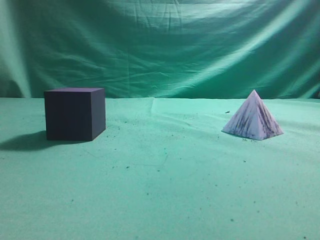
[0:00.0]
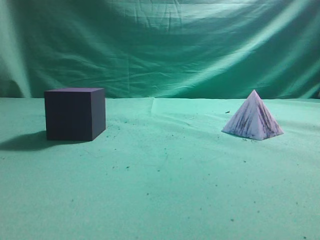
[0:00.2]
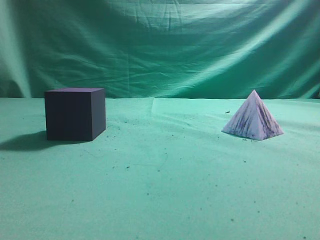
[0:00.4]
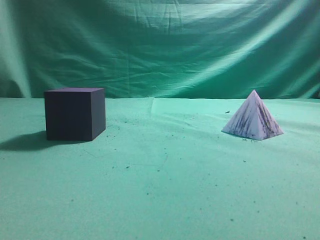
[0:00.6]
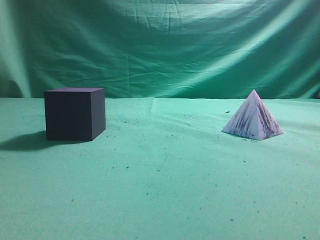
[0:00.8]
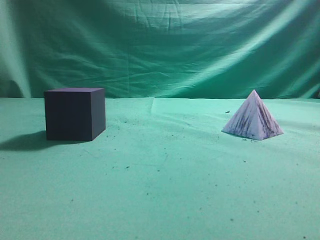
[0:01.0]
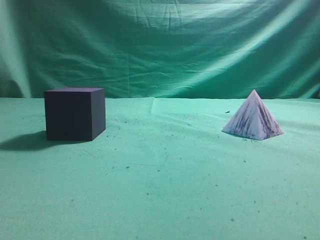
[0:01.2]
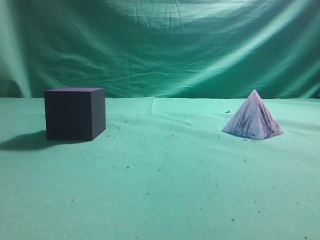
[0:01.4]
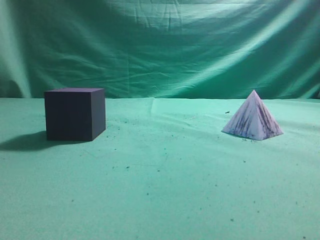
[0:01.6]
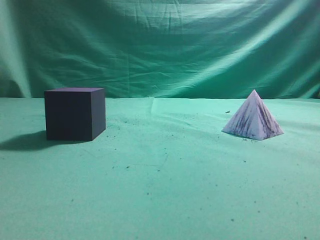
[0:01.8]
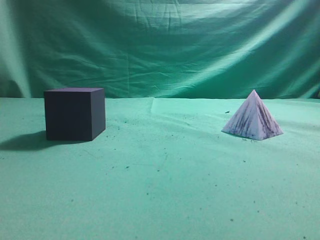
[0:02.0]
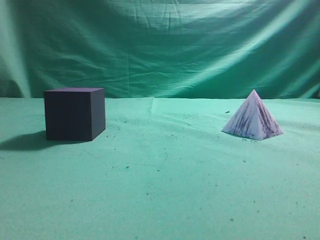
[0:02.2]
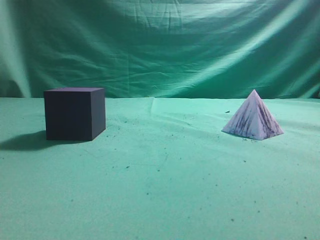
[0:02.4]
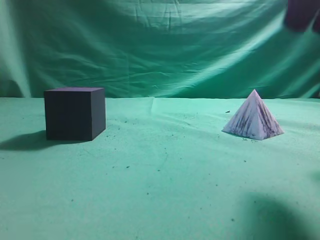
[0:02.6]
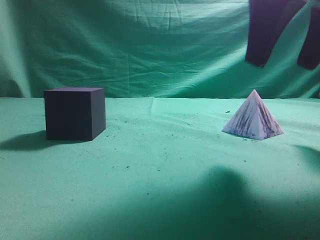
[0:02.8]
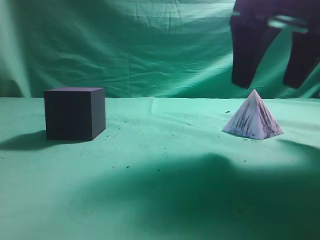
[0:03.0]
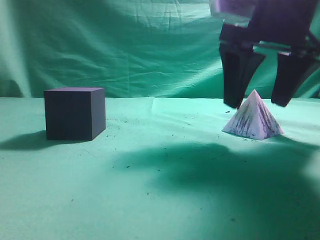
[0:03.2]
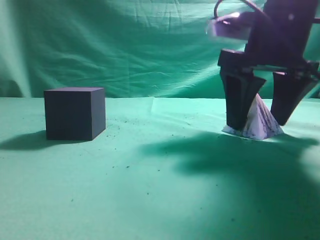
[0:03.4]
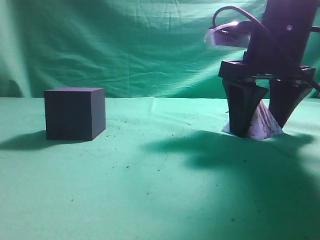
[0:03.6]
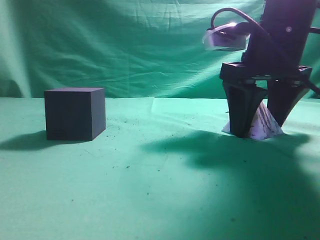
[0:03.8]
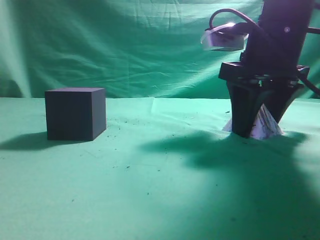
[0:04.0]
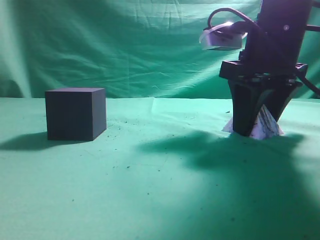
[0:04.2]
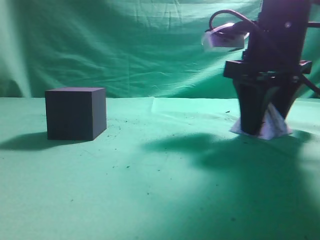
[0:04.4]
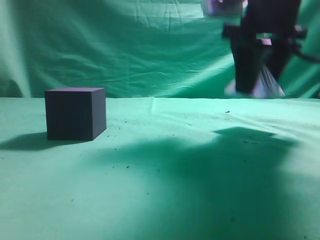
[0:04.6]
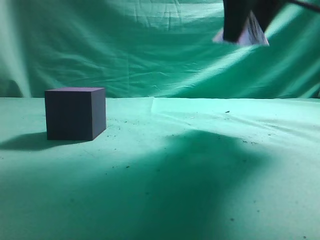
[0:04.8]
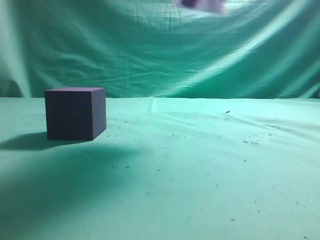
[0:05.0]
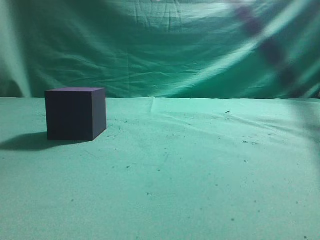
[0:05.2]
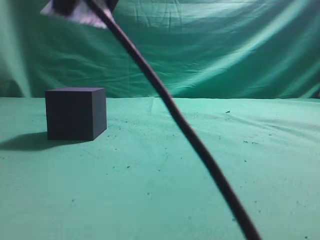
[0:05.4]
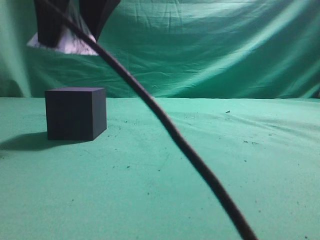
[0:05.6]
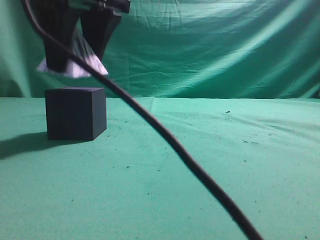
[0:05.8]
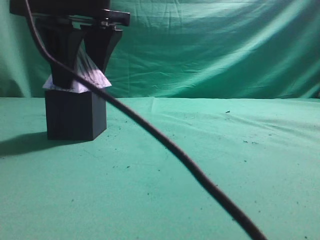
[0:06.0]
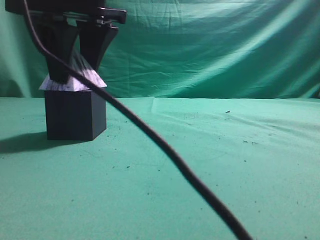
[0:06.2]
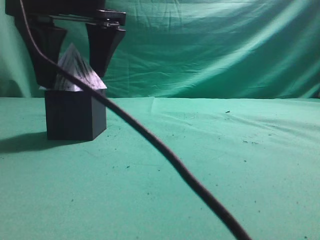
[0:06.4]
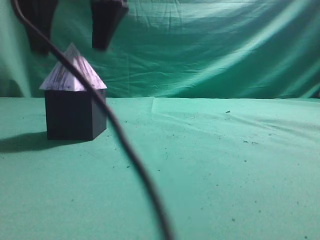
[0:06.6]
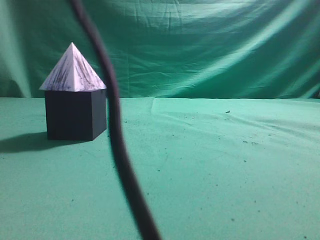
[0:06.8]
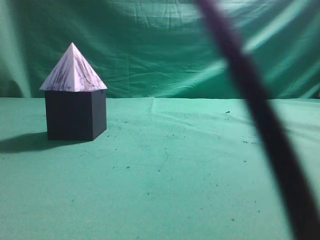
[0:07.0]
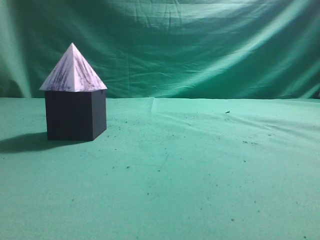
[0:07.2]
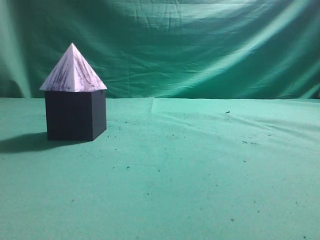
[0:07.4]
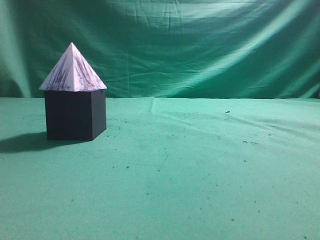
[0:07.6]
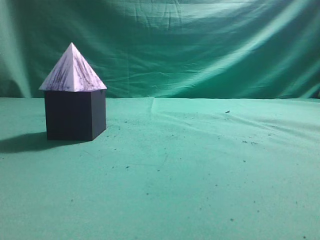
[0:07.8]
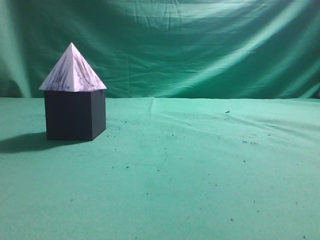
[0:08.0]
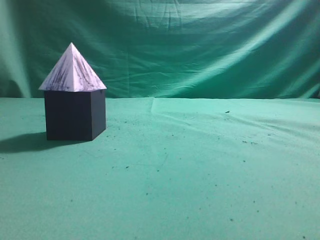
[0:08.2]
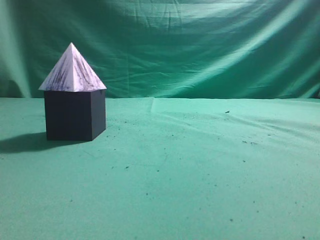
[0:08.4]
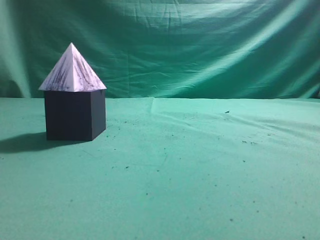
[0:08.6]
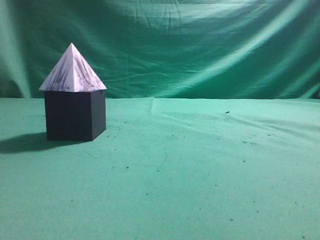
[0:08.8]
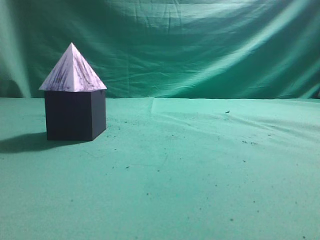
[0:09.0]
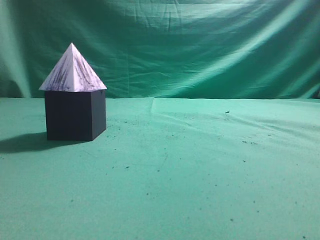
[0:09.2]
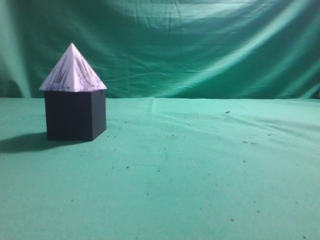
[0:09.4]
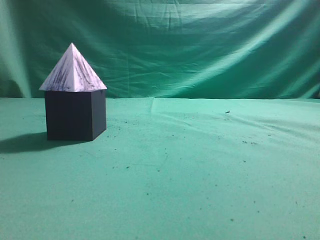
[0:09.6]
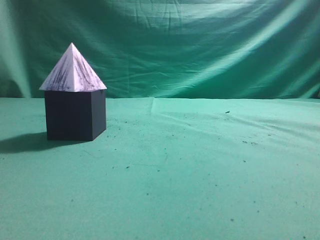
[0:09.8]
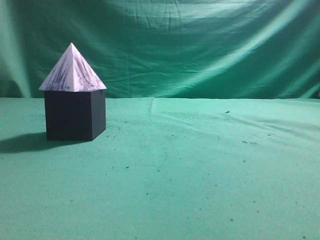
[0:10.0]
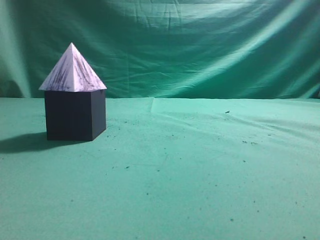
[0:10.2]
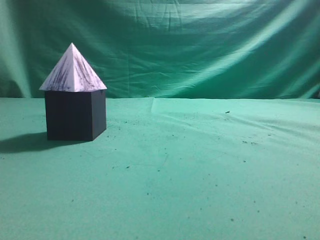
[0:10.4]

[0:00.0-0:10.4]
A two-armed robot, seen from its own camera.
Task of the whole recording: pick up the square pyramid from the table and place it on the cube block.
Step, 0:00.0 to 0:04.4: Grasp the triangular block.
Step, 0:04.6 to 0:06.6: Place the block onto the cube-shaped block.
0:01.4 to 0:03.0: The right gripper goes roughly 25 cm forward and to the left, and opens.
0:03.0 to 0:04.4: The right gripper moves downward, roughly 5 cm, and closes.
0:04.4 to 0:06.0: The right gripper is displaced to the left by some 20 cm.
0:06.0 to 0:07.4: The right gripper moves upward, to the right and backward, roughly 30 cm, and closes up.
